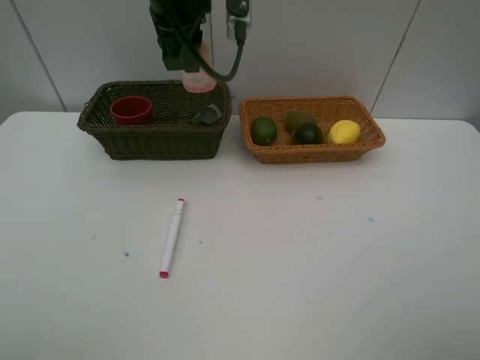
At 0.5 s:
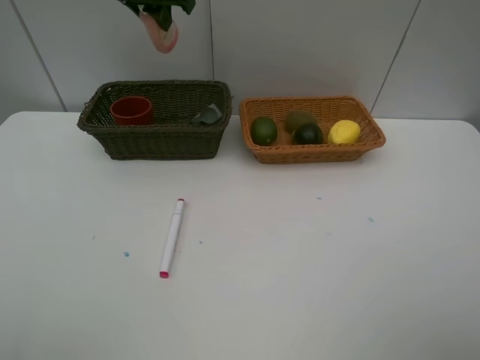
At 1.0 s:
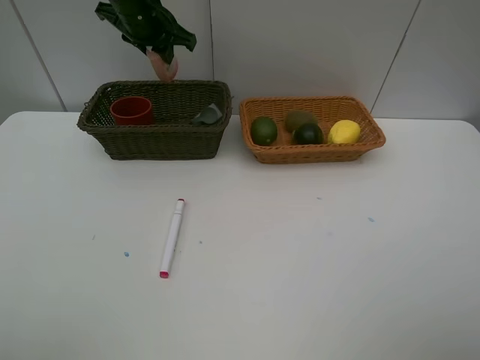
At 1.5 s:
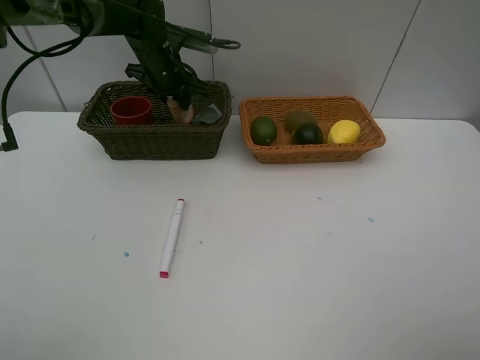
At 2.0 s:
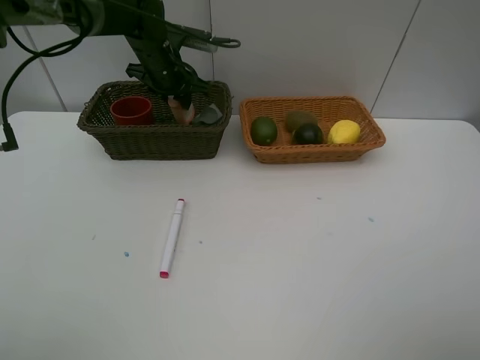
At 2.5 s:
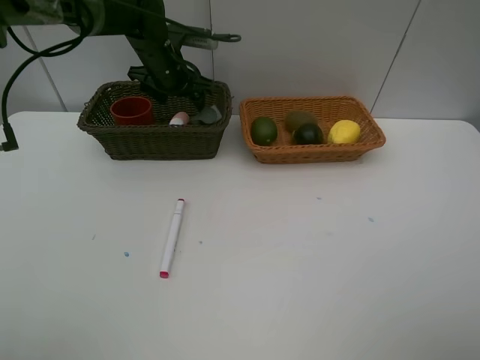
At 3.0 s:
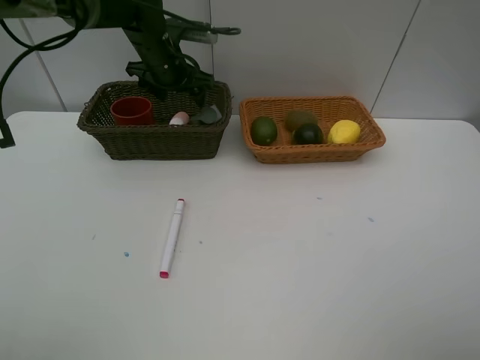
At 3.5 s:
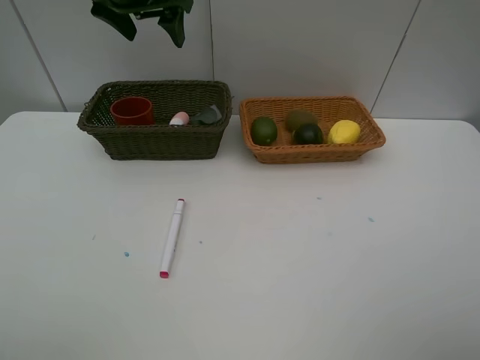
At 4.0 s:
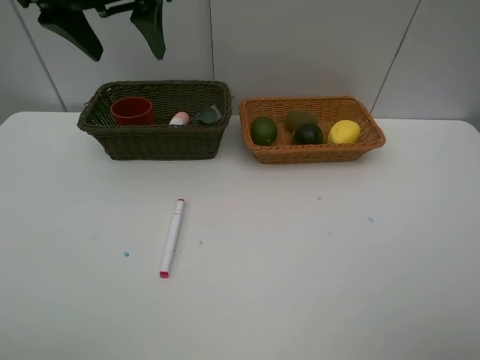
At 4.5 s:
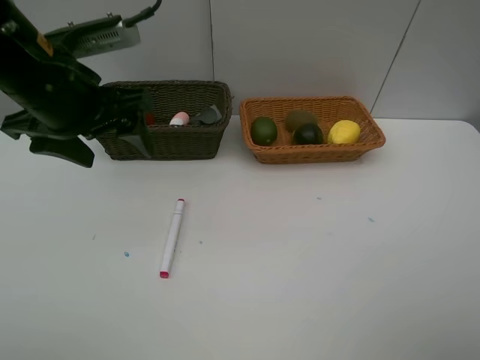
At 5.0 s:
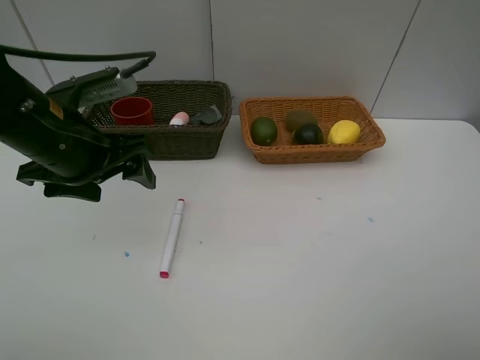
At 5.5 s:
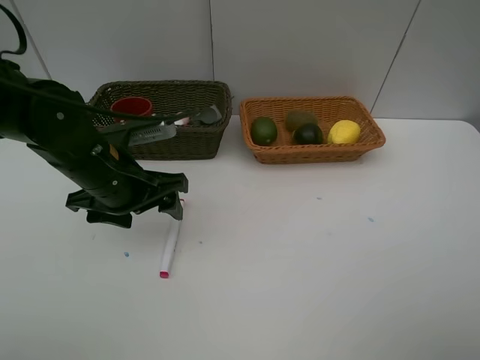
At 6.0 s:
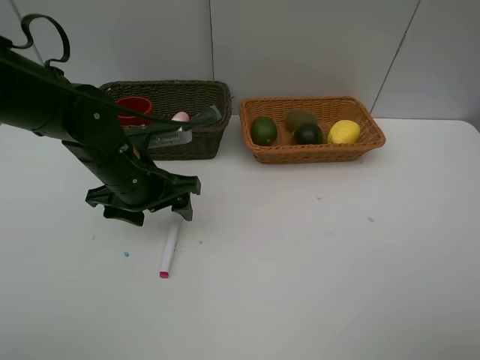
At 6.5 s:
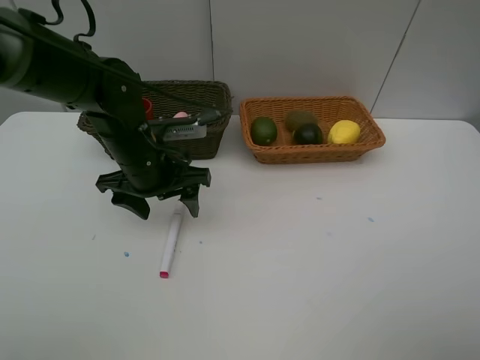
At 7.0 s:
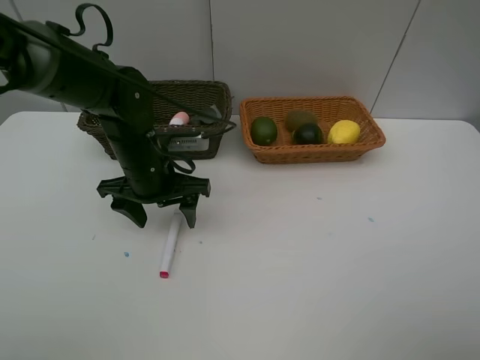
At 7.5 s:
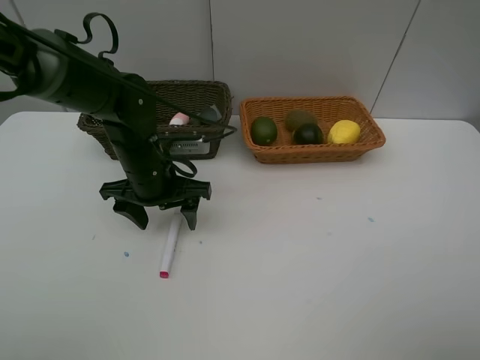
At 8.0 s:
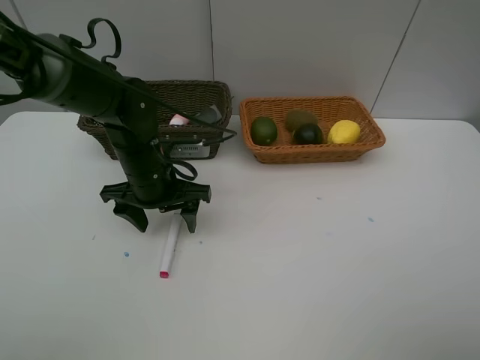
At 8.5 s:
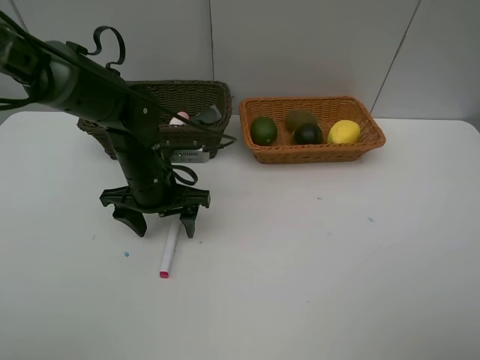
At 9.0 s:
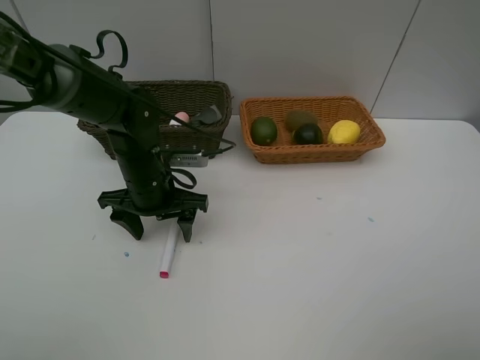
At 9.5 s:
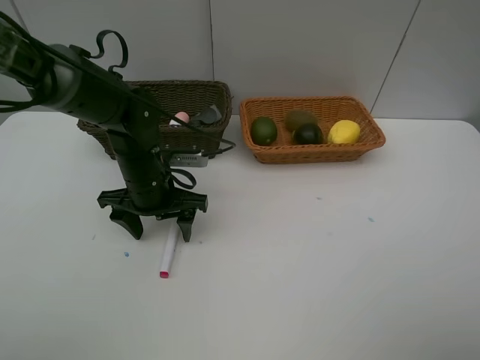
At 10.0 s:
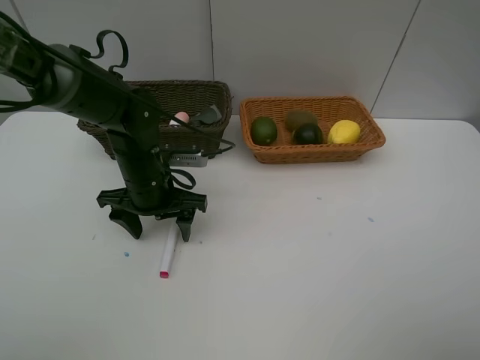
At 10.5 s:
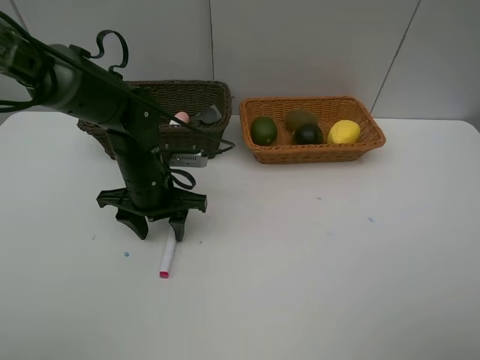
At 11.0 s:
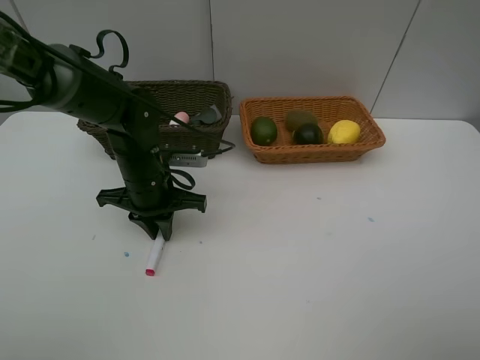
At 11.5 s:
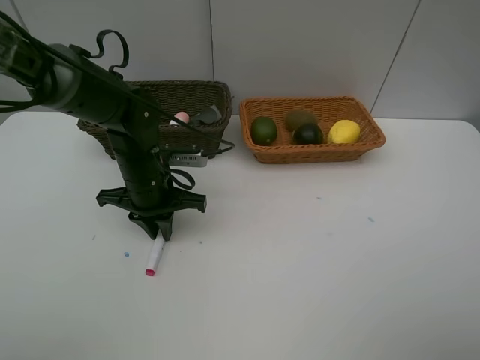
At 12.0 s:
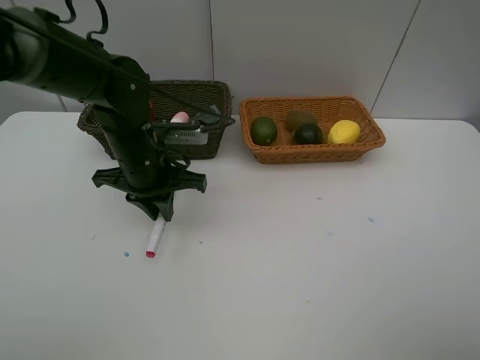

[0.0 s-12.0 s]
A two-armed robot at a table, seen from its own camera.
Task of the whole recording: Place multiple objects separately in different baskets.
Step, 0.0 to 2.5 s: Place the laundry detergent in the dark basket with left gripper.
Step, 3.0 to 12.0 s: Pick up the red marker with left gripper.
0.0 to 2.0 s: The left gripper heads downward and forward, covering about 20 cm.
2.0 to 4.0 s: The left gripper goes approximately 25 cm upward and backward, and opens its fingers.
4.0 to 6.0 s: The left gripper is displaced downward by some 20 cm.
6.0 to 8.0 s: The grippers make only small movements.
8.0 to 10.0 s: Neither gripper changes place.
10.0 to 12.0 s: The left gripper travels upward by some 5 cm, and closes its fingers.

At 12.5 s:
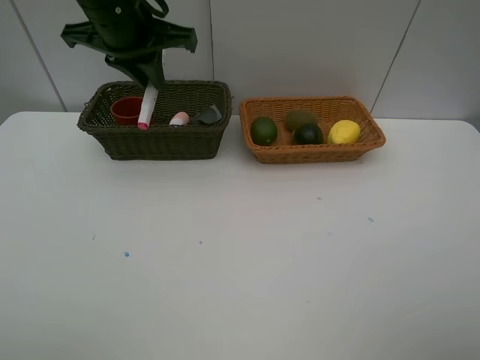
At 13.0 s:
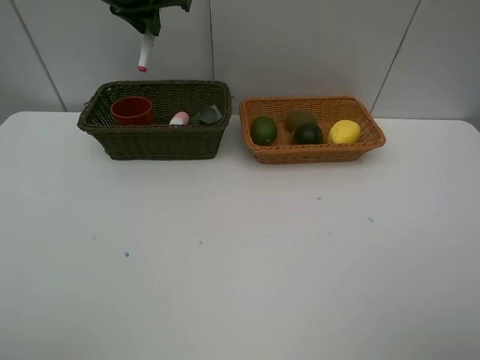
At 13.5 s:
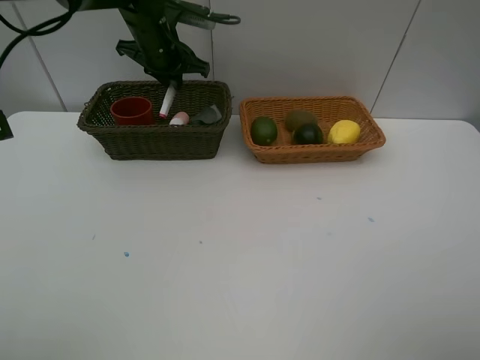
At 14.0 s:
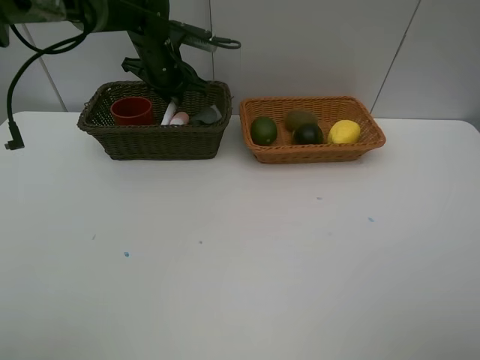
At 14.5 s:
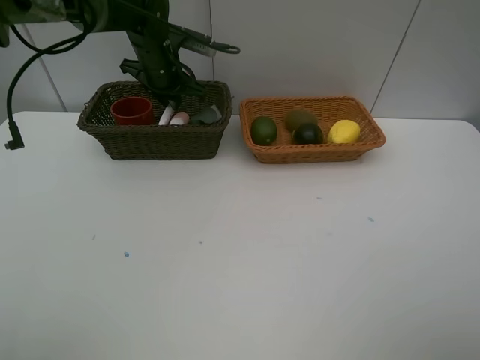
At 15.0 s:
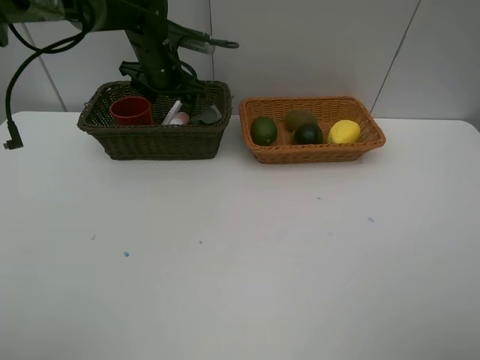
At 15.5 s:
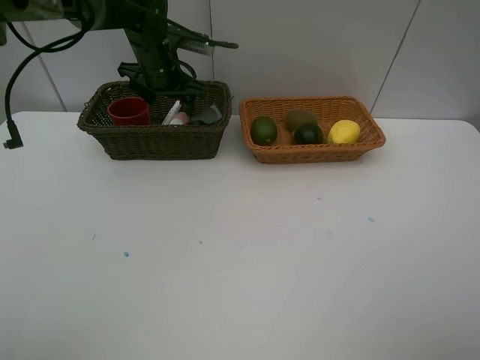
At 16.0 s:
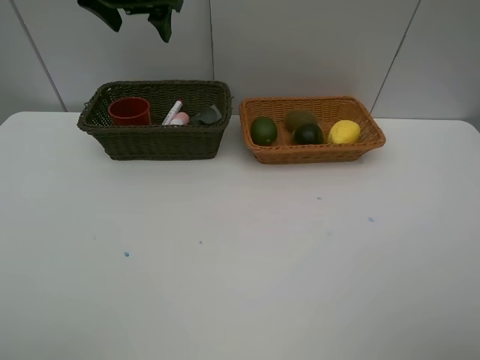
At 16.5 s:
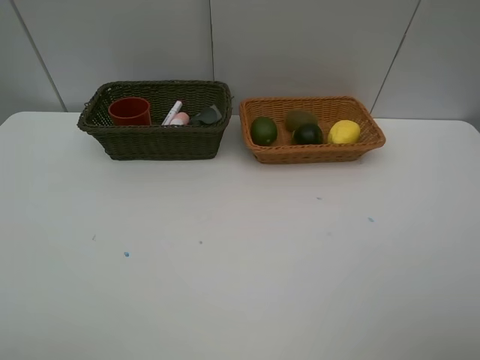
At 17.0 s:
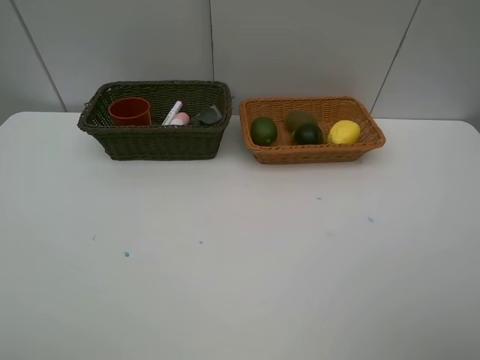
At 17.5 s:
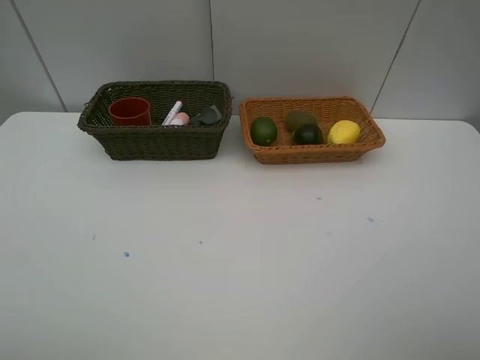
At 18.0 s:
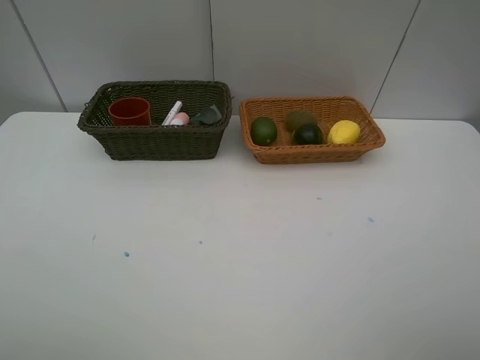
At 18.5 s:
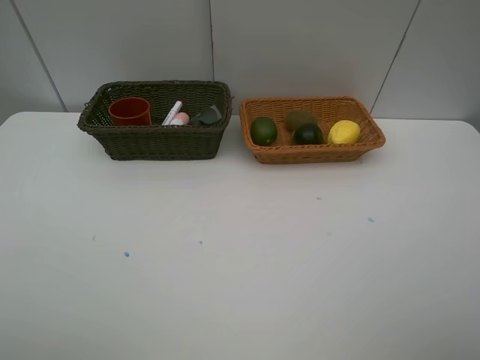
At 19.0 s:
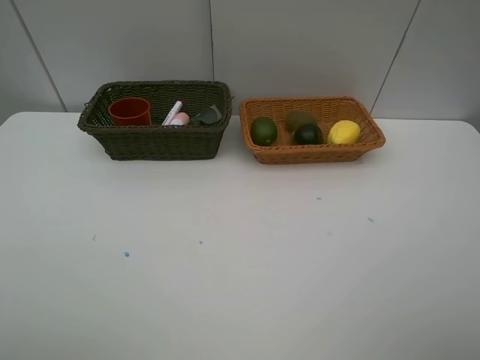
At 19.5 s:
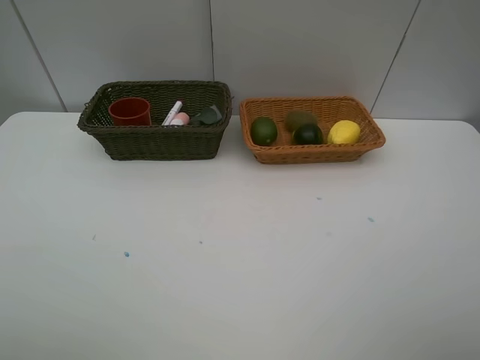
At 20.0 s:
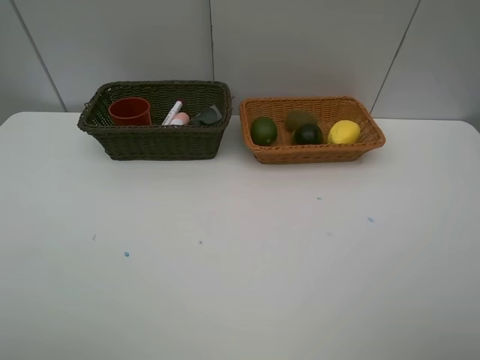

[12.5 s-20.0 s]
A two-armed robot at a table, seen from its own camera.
Task of the whole recording: Place multiple objects separately in different baskets.
Step, 12.5 to 15.5 s: Place the red marker in the dark basket with left gripper.
12.5 to 14.5 s: The left gripper is displaced downward and forward by about 20 cm.
14.5 to 16.5 s: The left gripper moves upward and backward, approximately 40 cm, and opens.
18.0 to 20.0 s: Both grippers stay about where they are.

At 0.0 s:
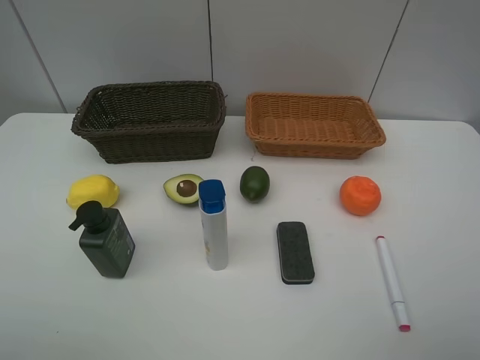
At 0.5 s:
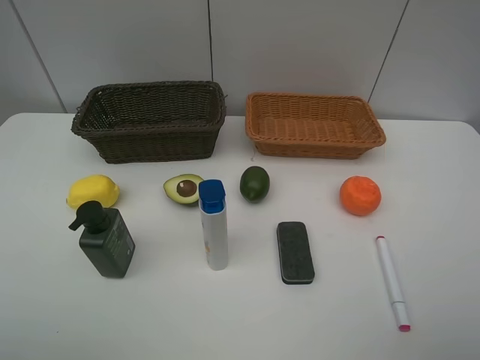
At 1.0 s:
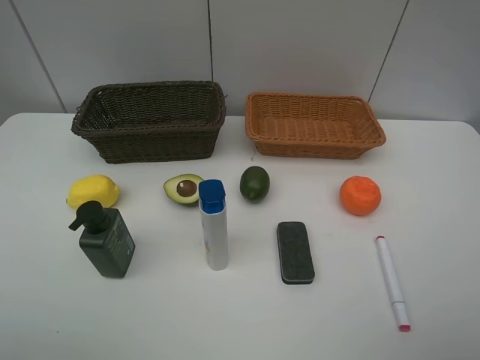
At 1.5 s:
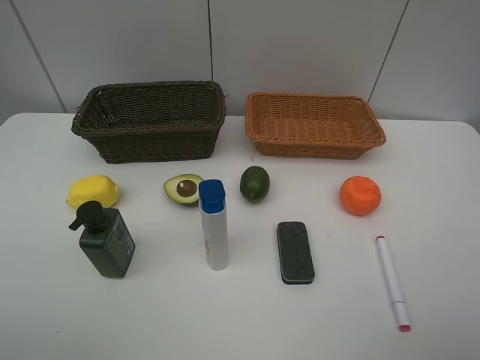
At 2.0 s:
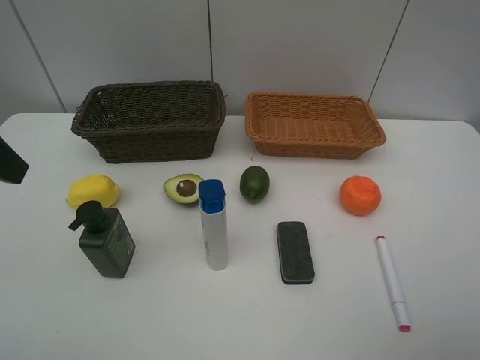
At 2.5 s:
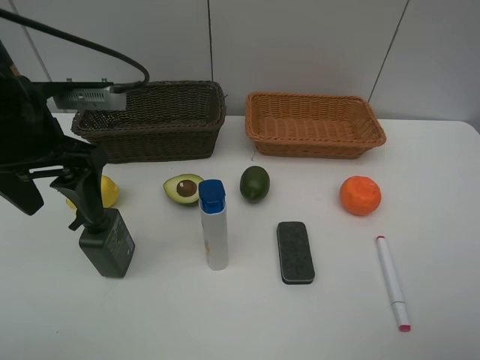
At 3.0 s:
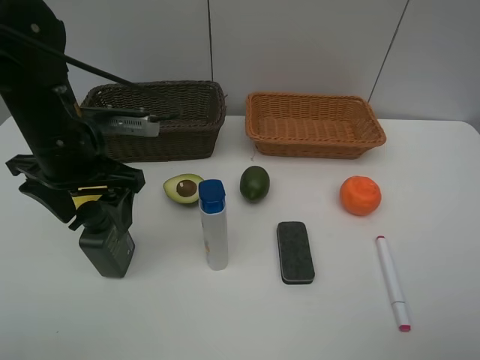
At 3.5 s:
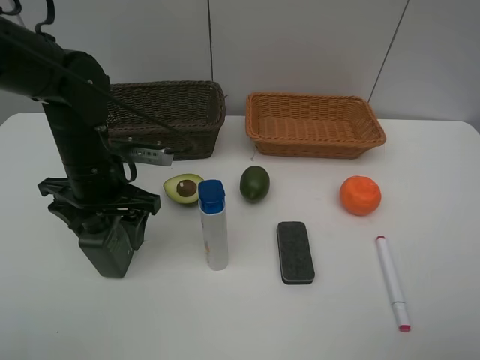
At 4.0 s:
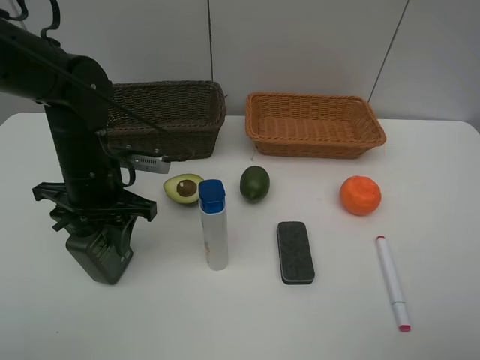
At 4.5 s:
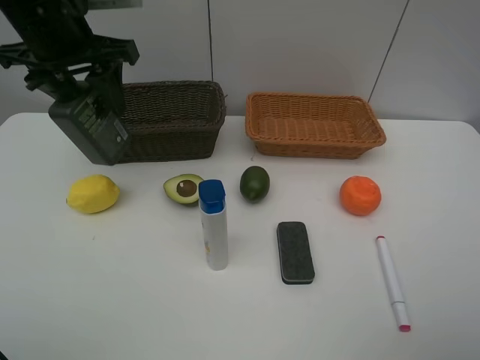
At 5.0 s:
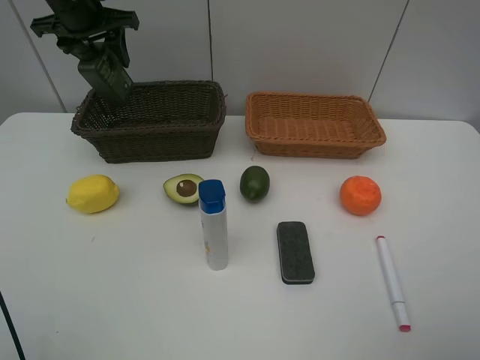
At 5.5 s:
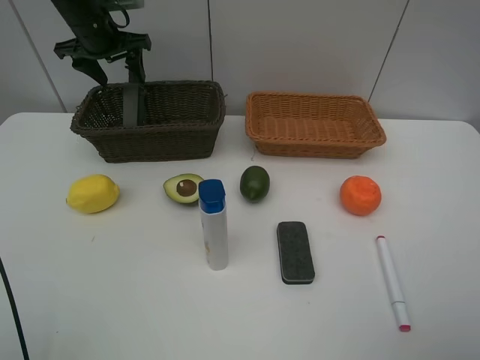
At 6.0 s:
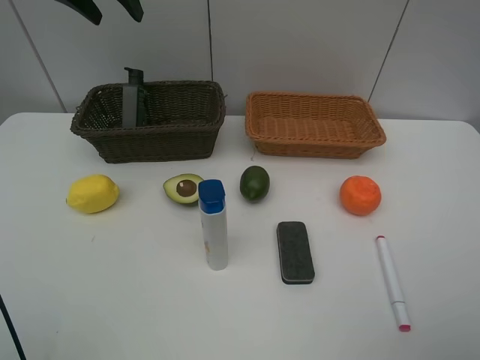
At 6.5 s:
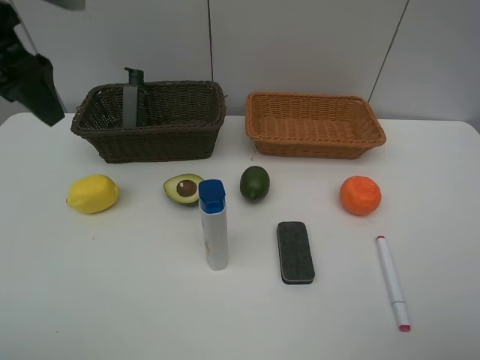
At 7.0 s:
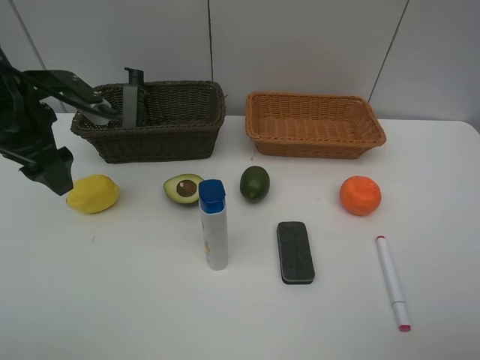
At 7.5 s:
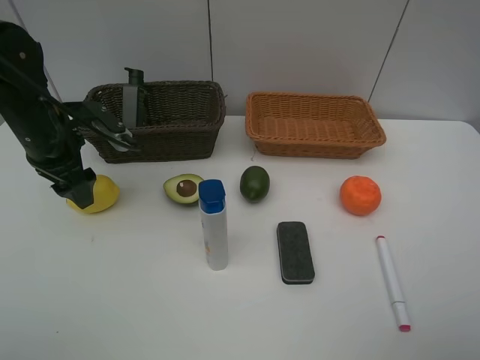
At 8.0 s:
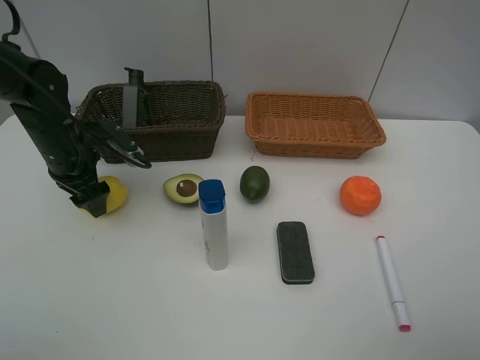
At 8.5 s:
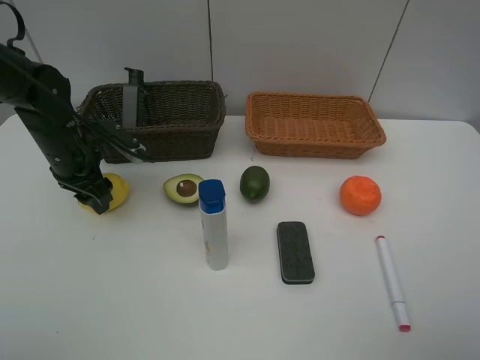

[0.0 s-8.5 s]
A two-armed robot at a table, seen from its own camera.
Task of the whole recording: Place multiple objects separately in different baskets.
Step, 0.0 to 4.0 s: Pick up the hard facial cleanser with left gripper.
Step, 4.5 to 5.5 s: Place the hard facial cleanser in the dark basket with left gripper.
2.0 to 4.0 s: The left gripper goes approximately 20 cm downward, to the right and forward, and closes up.
4.0 to 6.5 s: The left gripper goes roughly 20 cm upward and to the left, goes forward and returns, roughly 25 cm each way, and opens up.
6.5 to 8.5 s: The left gripper moves downward, roughly 20 cm.
